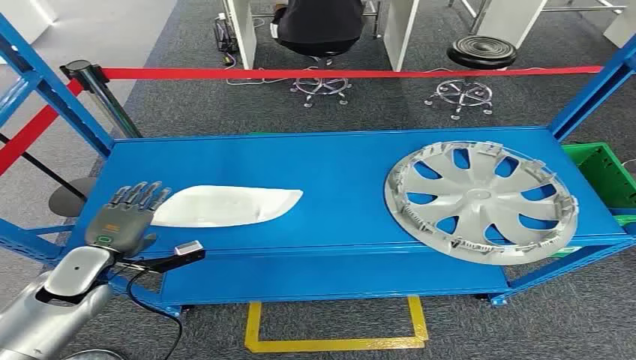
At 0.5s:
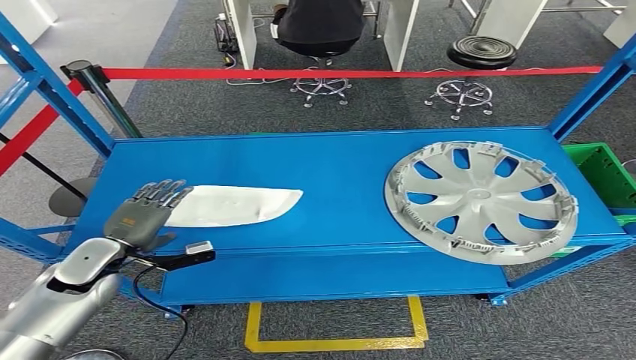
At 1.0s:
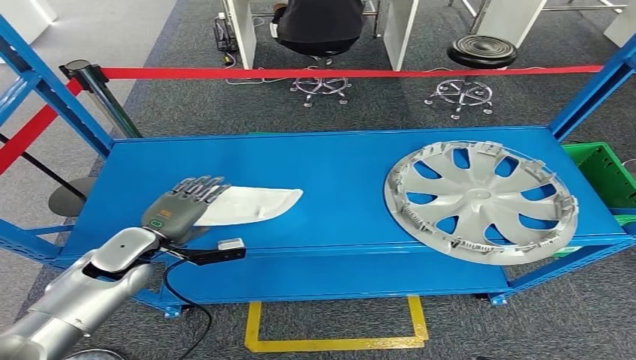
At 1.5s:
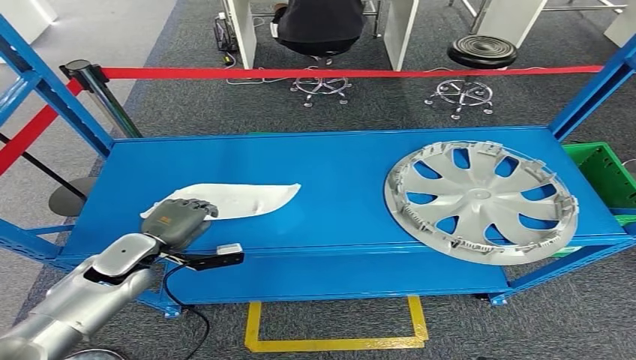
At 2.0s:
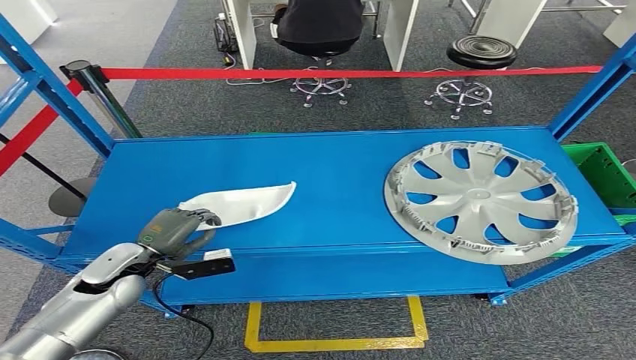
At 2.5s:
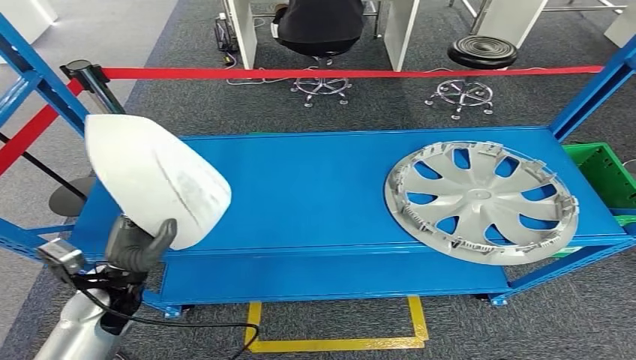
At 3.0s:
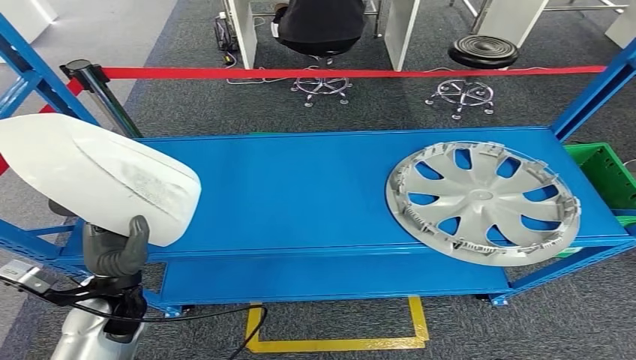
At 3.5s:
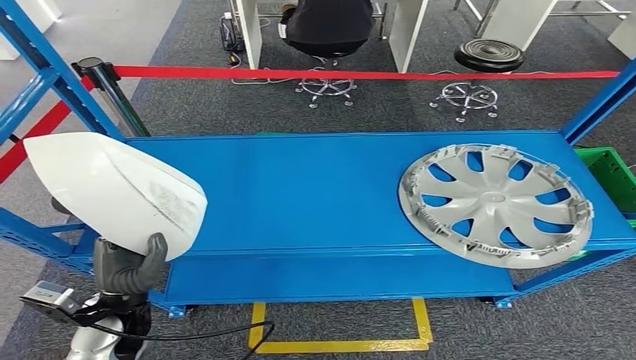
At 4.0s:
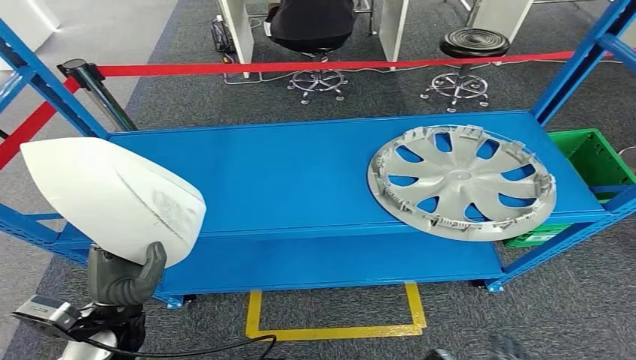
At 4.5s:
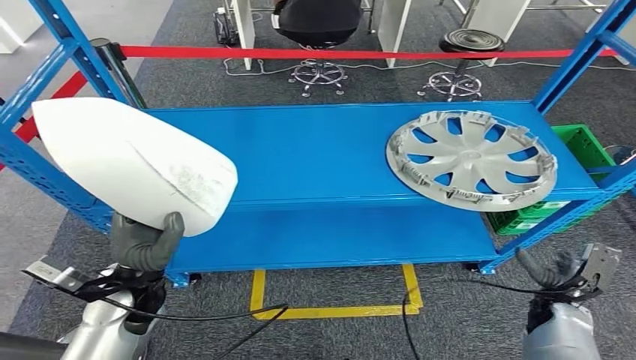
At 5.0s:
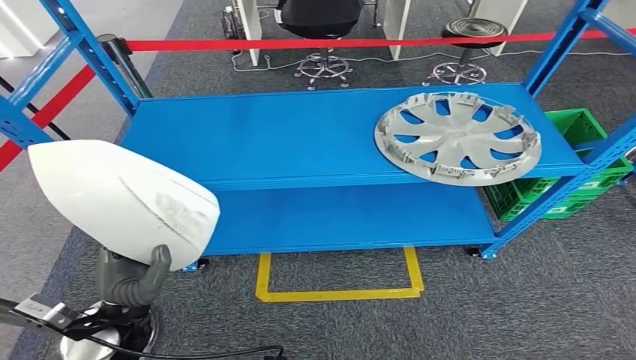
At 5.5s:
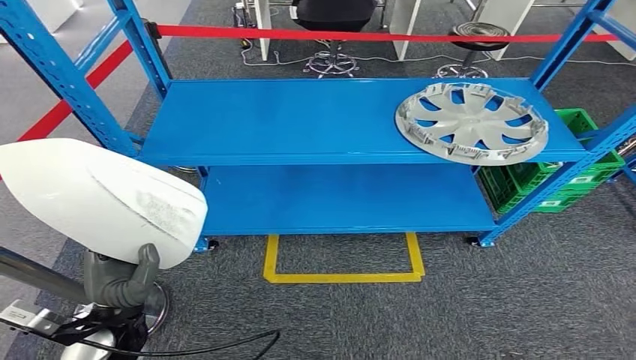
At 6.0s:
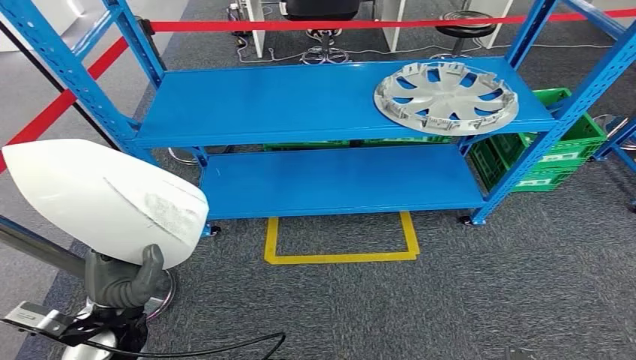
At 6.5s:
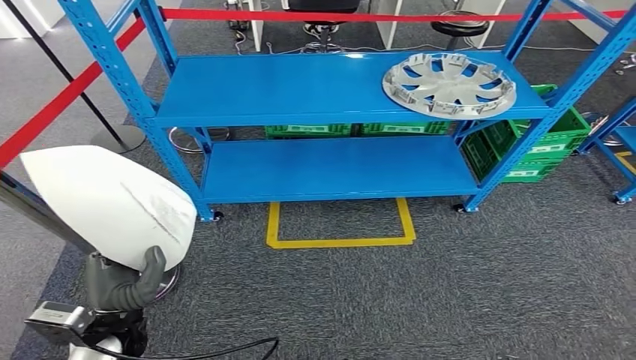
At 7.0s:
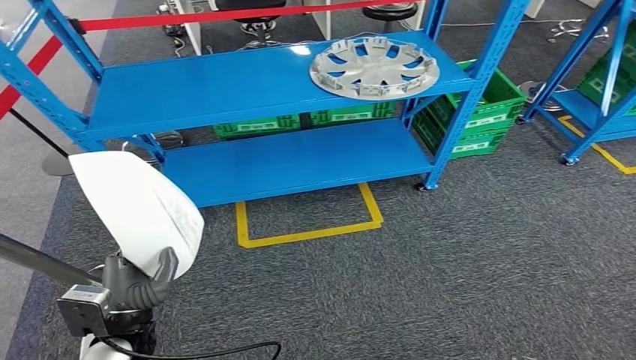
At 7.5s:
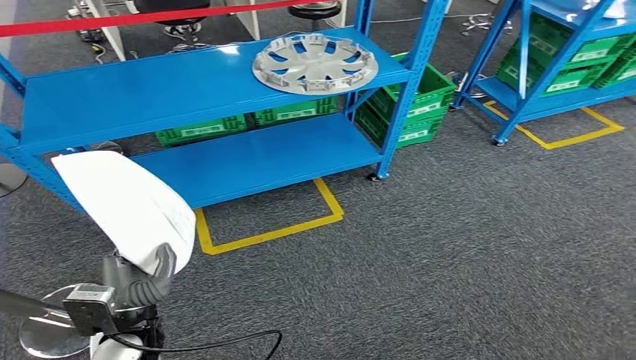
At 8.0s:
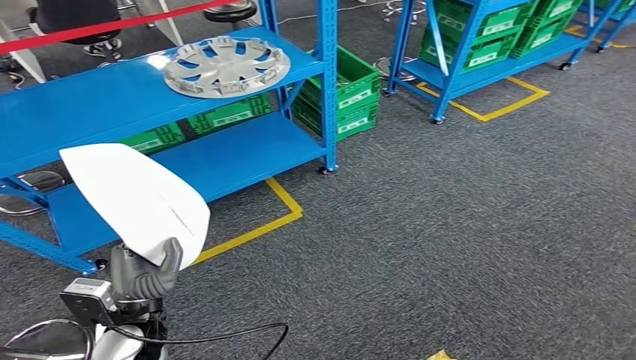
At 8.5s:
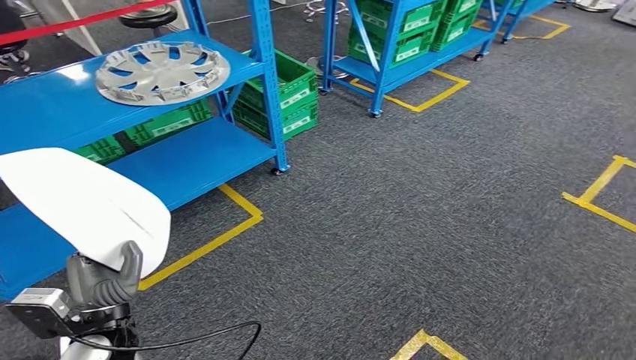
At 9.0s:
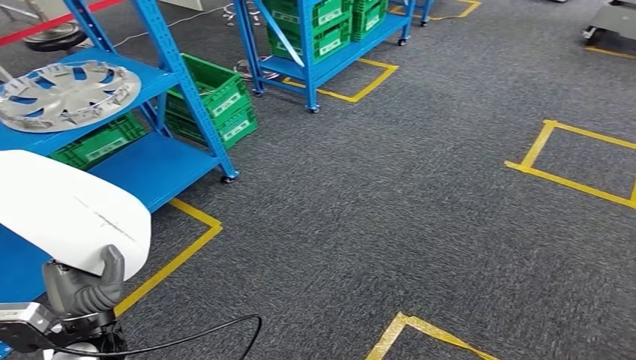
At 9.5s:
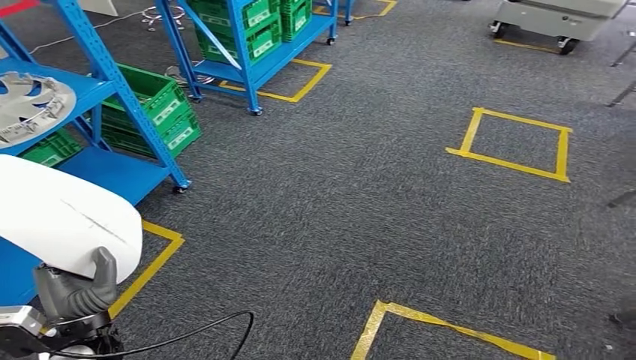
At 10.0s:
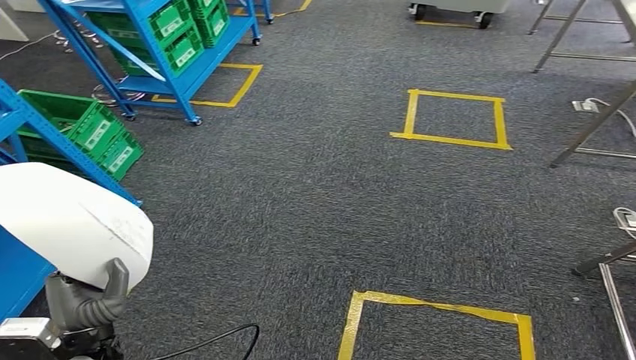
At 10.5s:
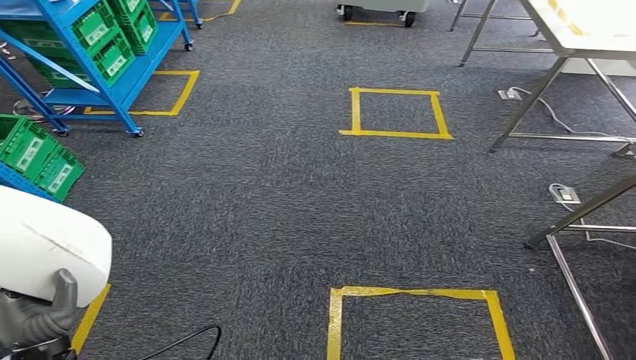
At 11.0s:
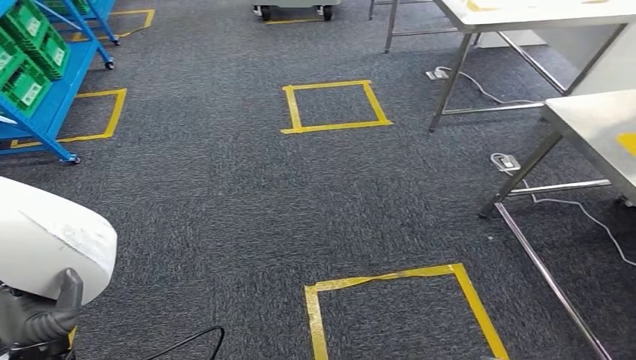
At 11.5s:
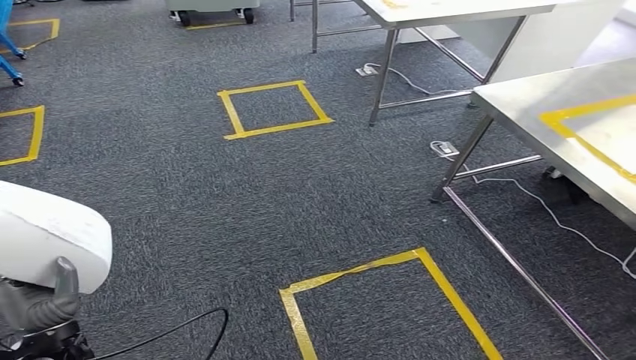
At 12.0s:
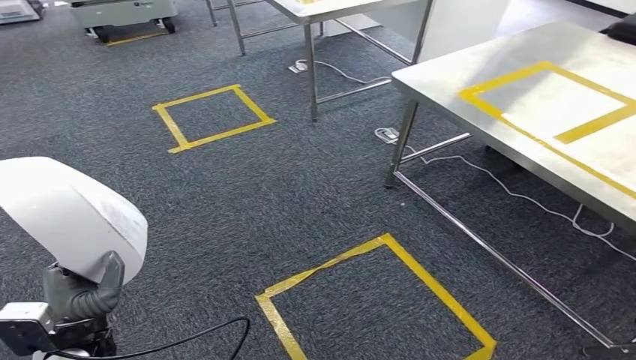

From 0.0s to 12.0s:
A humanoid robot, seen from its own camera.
Step, from 0.0s to 4.0s: Pick up the small parts from the shelf.

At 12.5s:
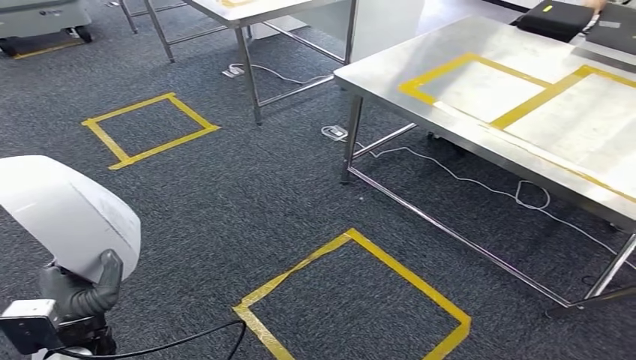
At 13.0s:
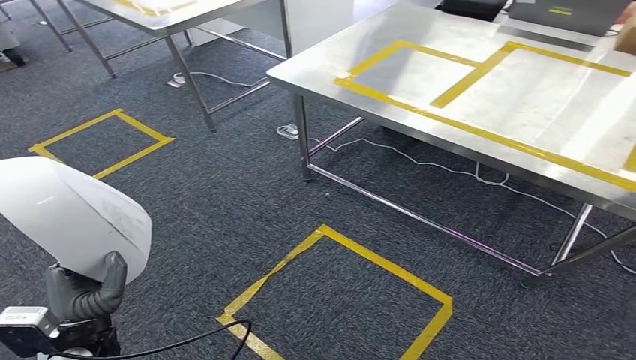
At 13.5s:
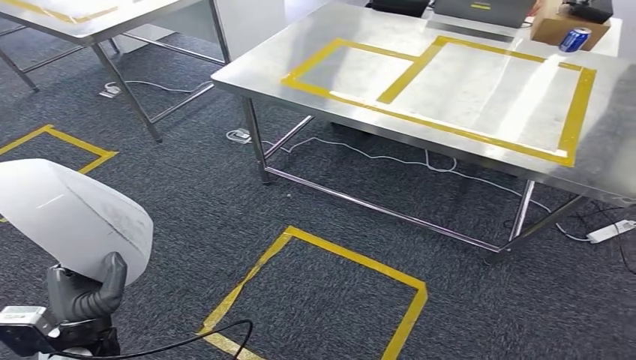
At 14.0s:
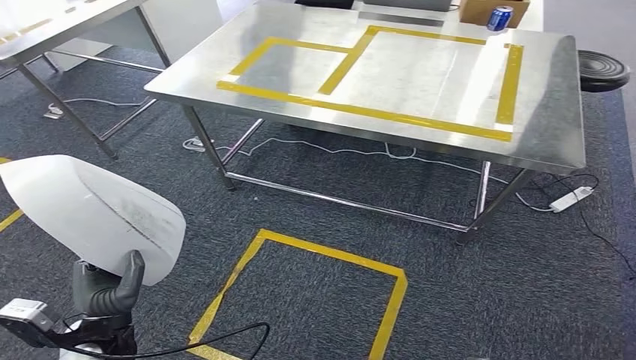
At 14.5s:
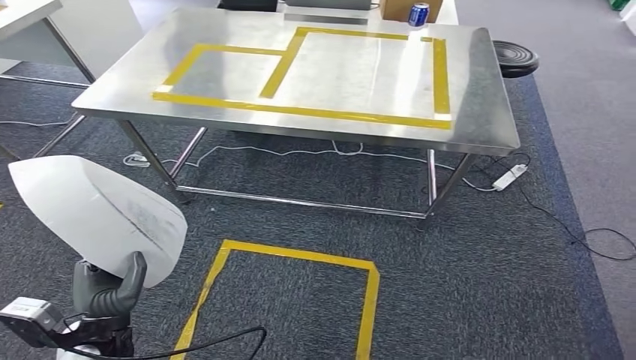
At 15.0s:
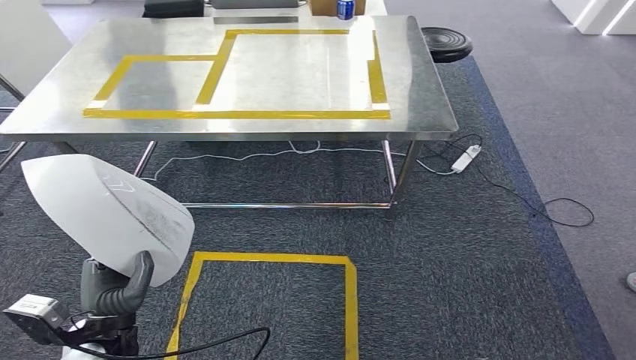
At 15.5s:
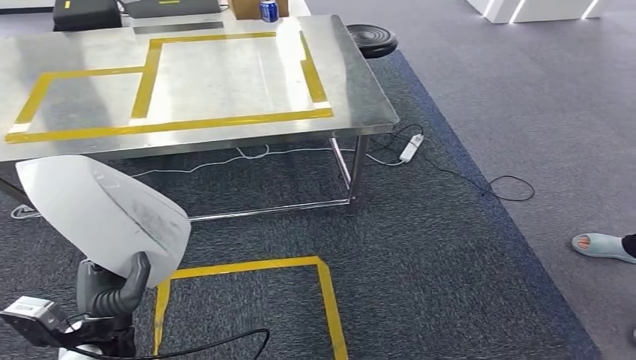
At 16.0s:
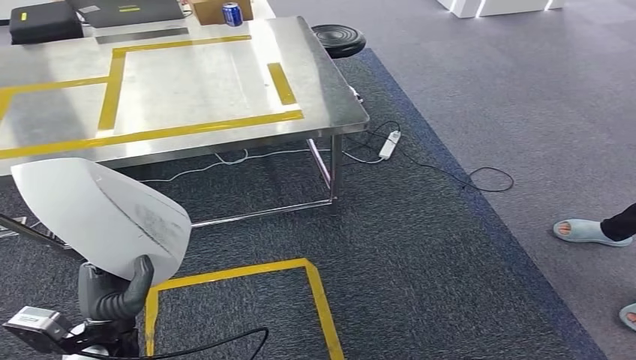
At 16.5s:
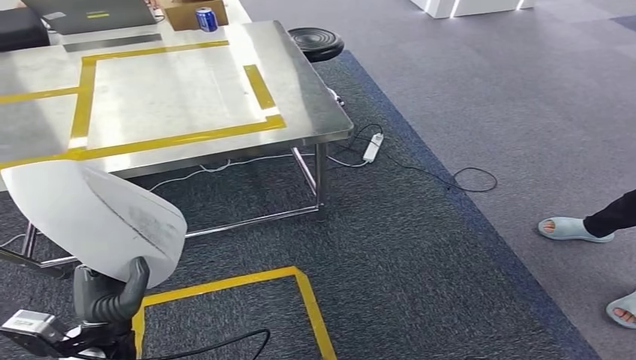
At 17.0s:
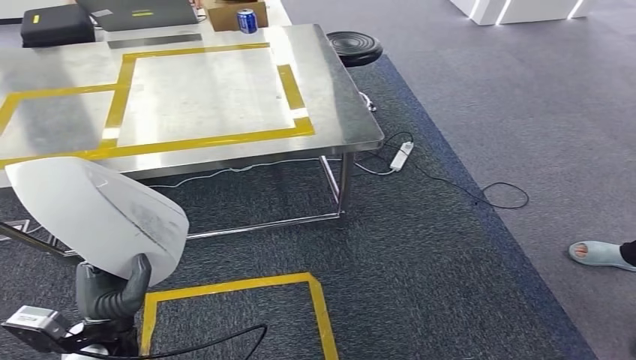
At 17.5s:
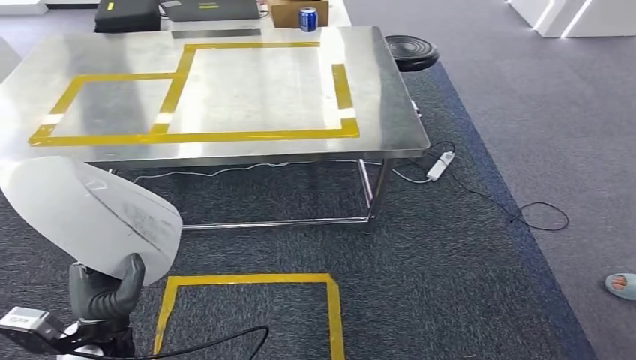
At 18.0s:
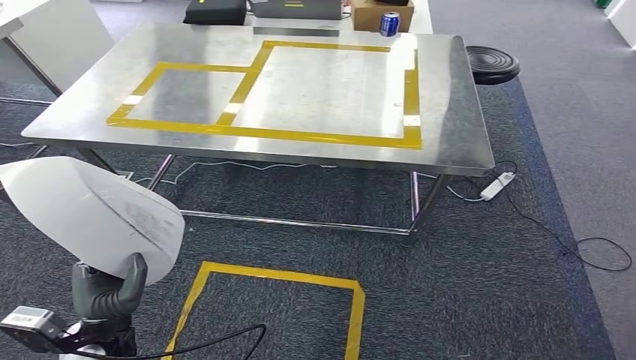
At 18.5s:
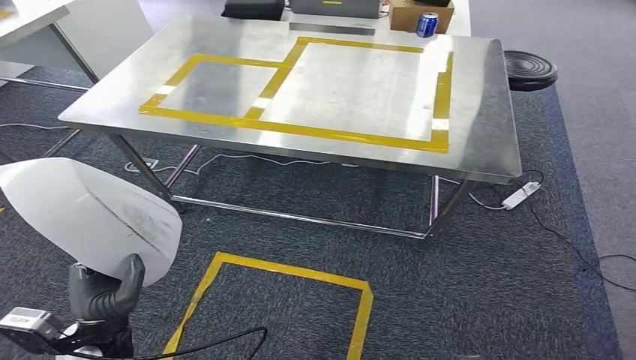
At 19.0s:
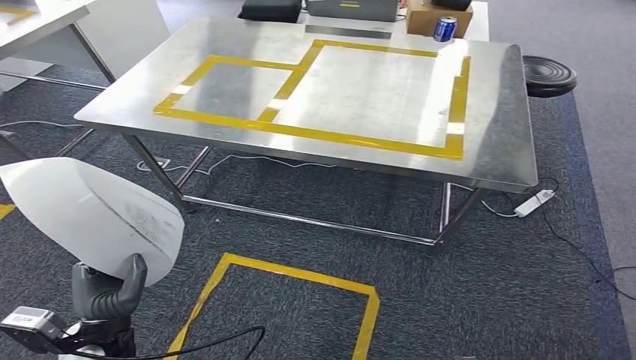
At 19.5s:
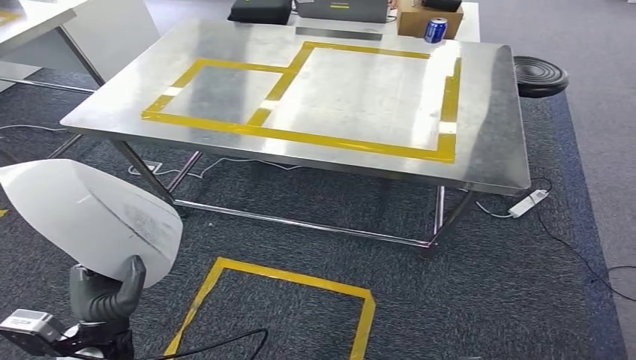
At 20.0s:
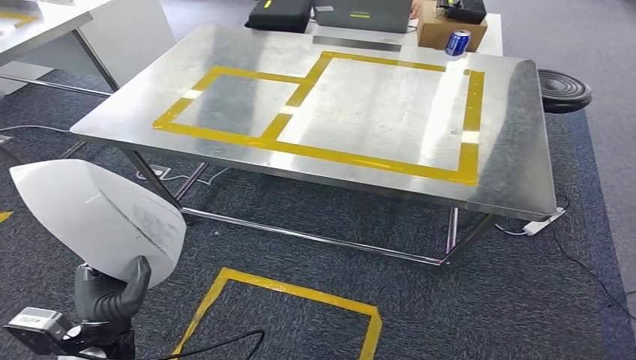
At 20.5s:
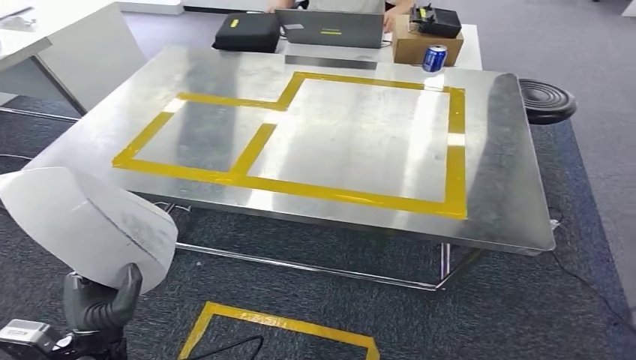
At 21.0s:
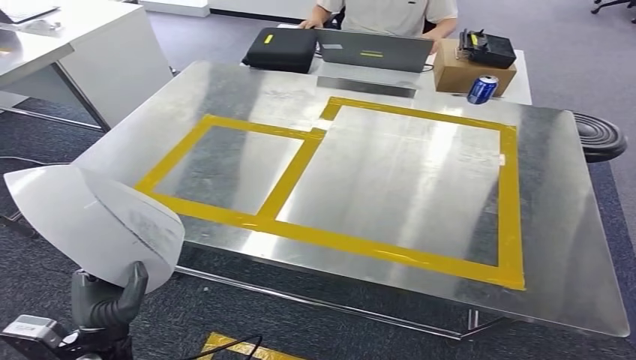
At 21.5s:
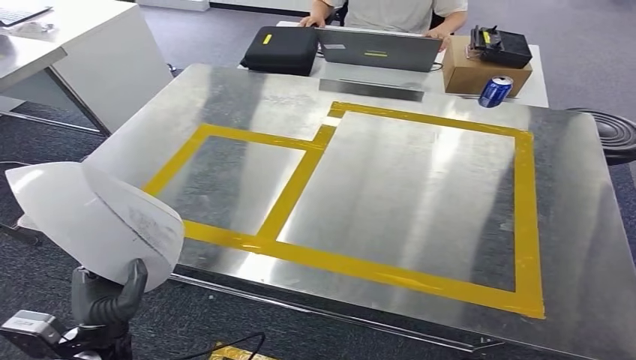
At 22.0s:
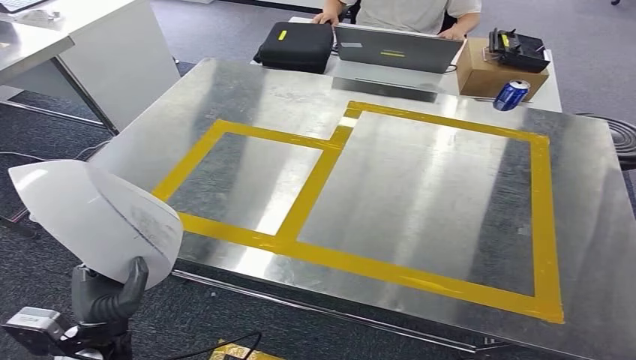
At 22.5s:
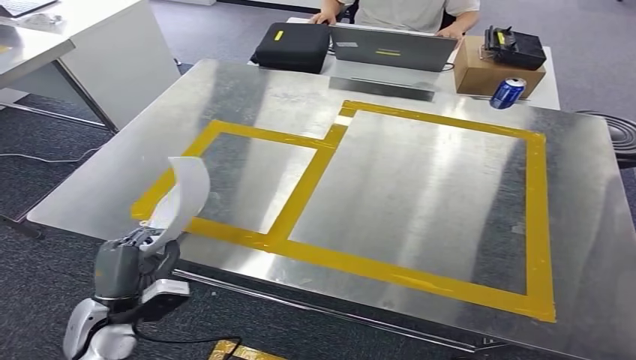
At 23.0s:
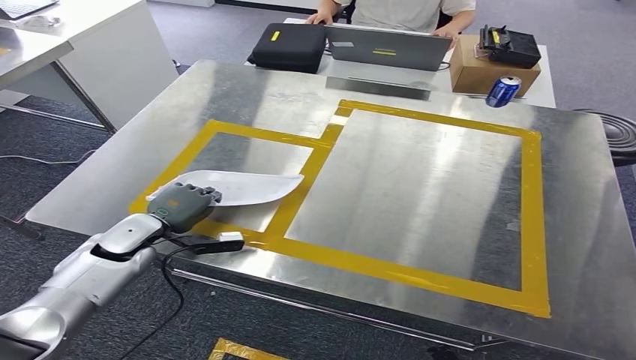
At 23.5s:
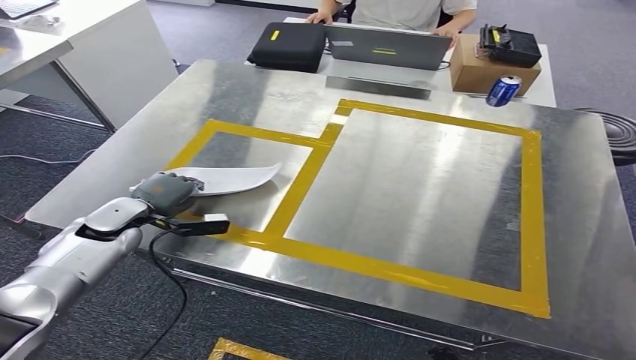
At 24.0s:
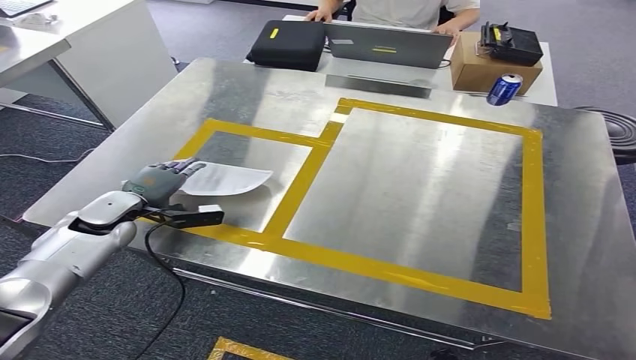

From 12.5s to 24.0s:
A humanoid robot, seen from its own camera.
Step, from 12.5s to 16.0s: Move the small parts to the workbench.
